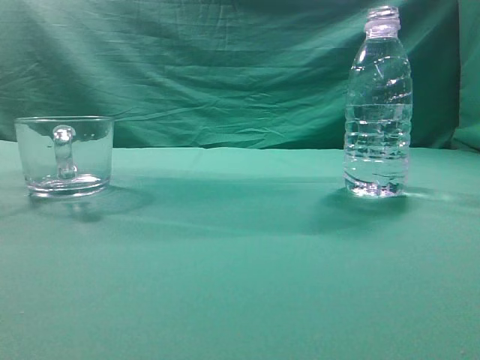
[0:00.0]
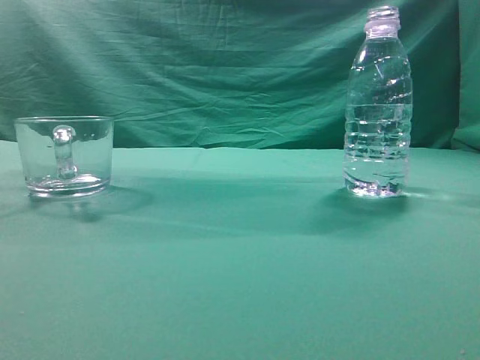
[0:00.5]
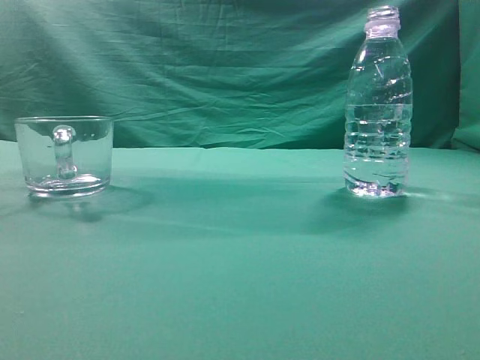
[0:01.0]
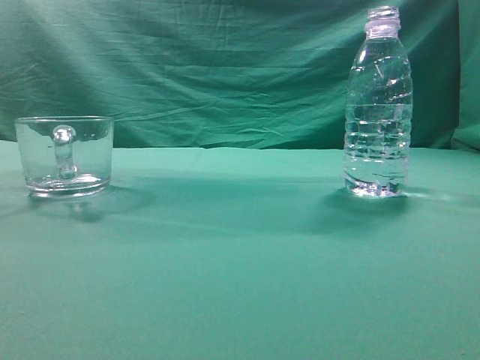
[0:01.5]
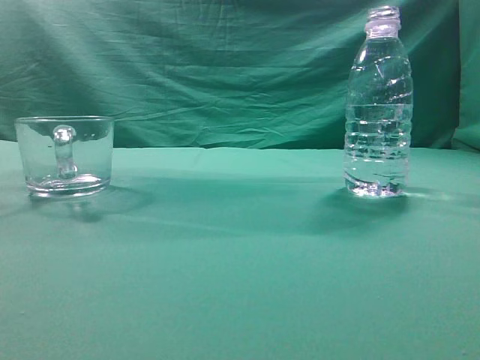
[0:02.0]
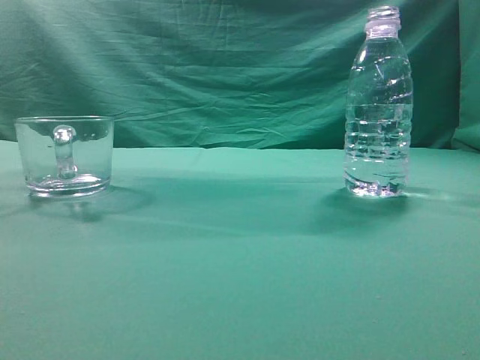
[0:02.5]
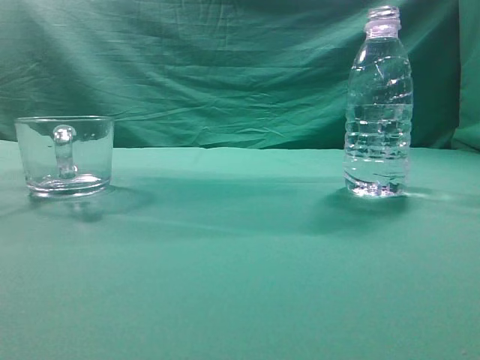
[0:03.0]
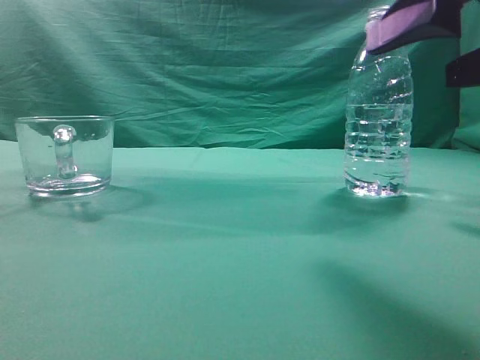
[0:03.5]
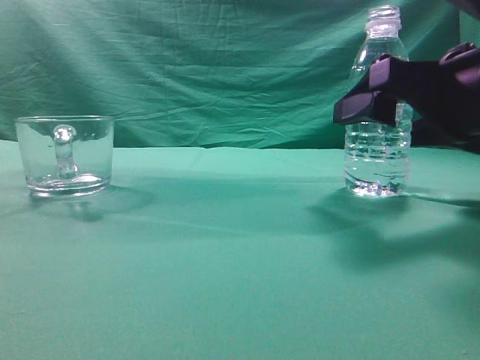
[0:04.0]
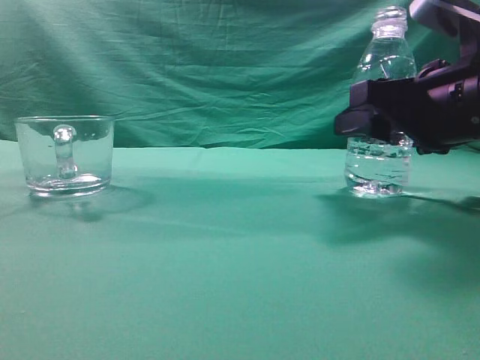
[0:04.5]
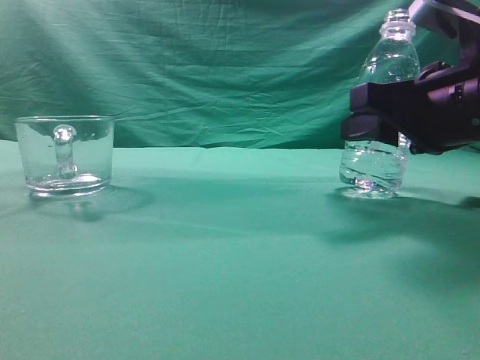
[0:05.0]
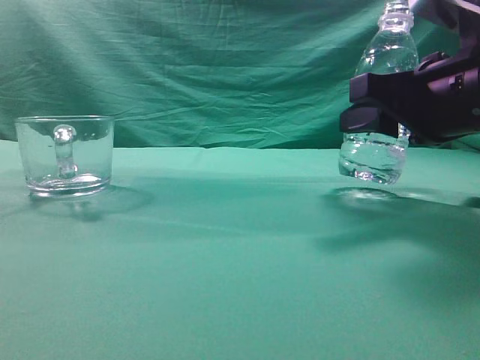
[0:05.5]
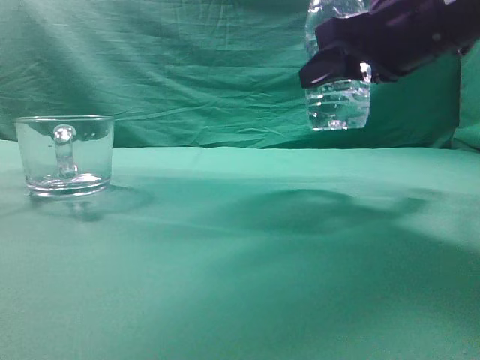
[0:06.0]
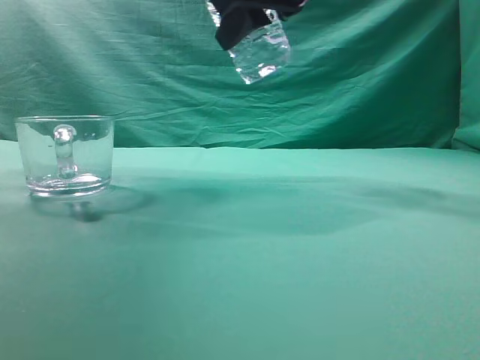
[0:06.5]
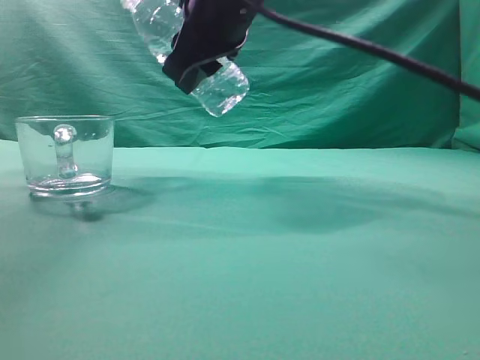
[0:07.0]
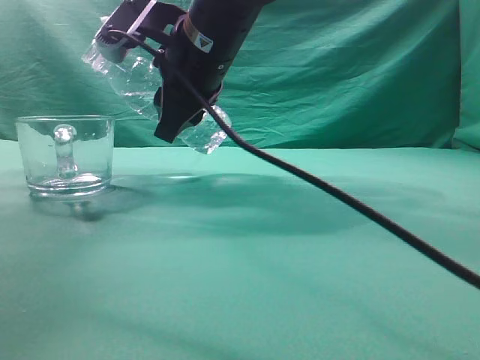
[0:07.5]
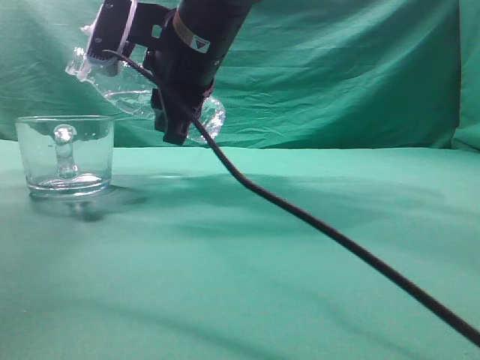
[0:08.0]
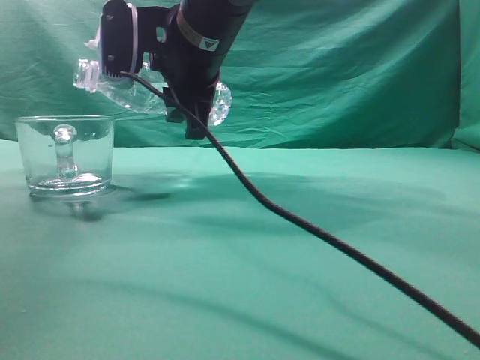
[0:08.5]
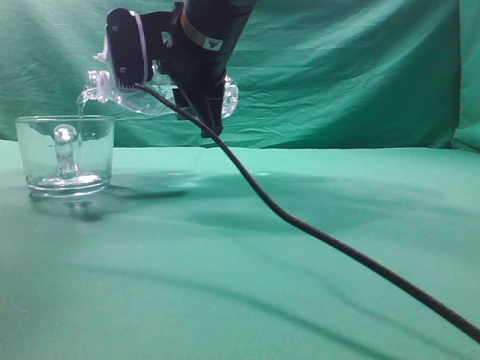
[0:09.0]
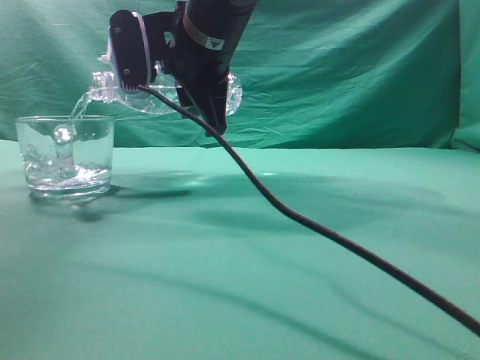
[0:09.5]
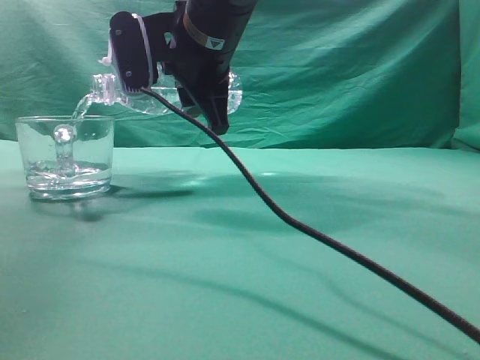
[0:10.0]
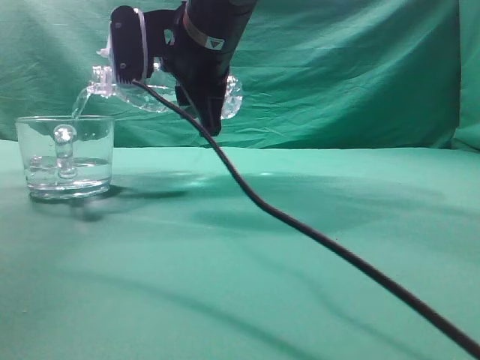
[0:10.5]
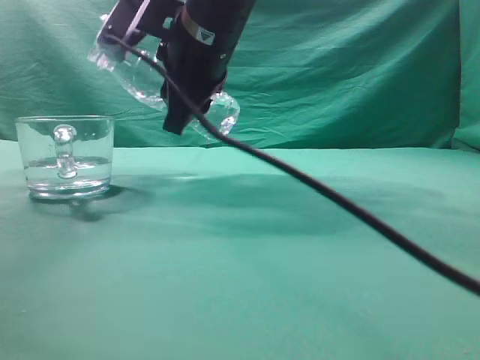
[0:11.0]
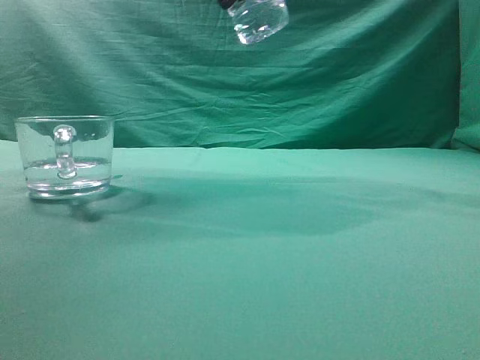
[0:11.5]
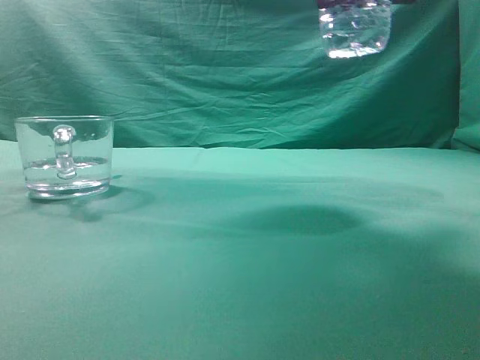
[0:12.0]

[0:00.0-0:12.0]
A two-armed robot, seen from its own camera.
Task of the whole recording: pick up the water bottle and pour the water in it into the glass.
Step, 0:00.0 to 0:05.5: Grasp the mineral water bottle.
Step, 0:06.0 to 0:11.0: Pour water into the teacup.
0:02.0 to 0:04.0: The right gripper is displaced forward and downward by approximately 25 cm, and opens.
0:04.0 to 0:06.0: The right gripper goes some 5 cm upward, and closes its fingers.
0:06.0 to 0:08.0: The right gripper moves to the left, roughly 20 cm.
0:10.0 to 0:12.0: The right gripper travels to the right by about 20 cm.

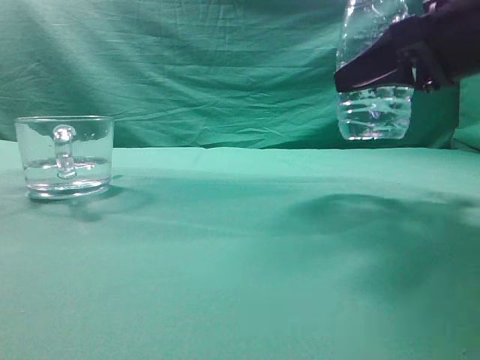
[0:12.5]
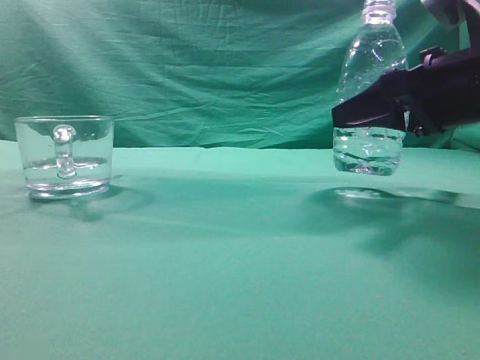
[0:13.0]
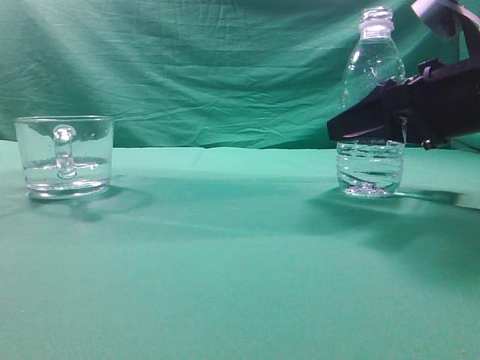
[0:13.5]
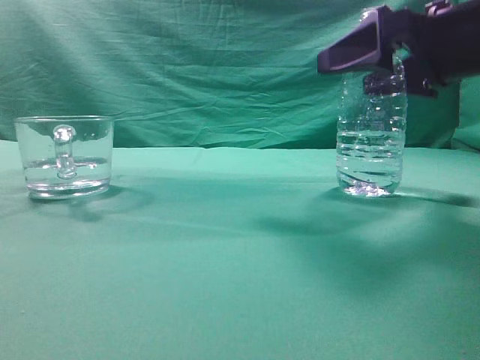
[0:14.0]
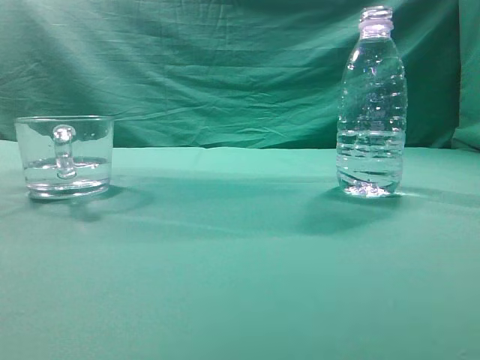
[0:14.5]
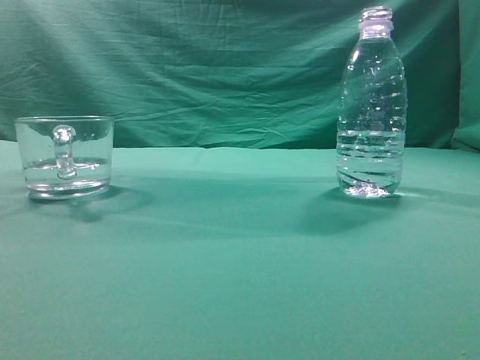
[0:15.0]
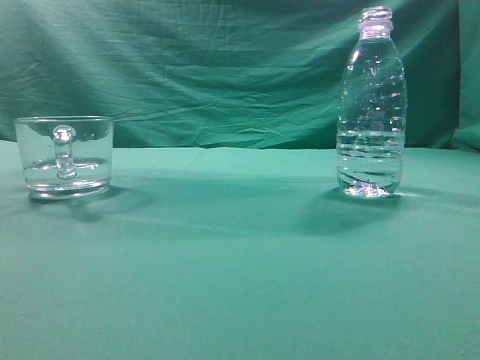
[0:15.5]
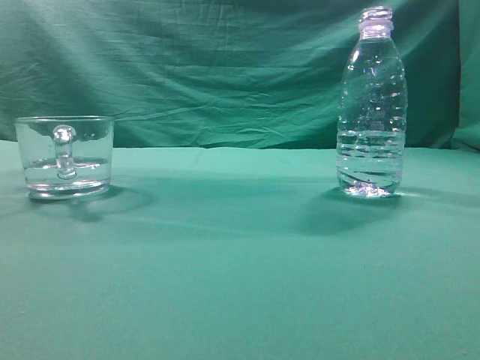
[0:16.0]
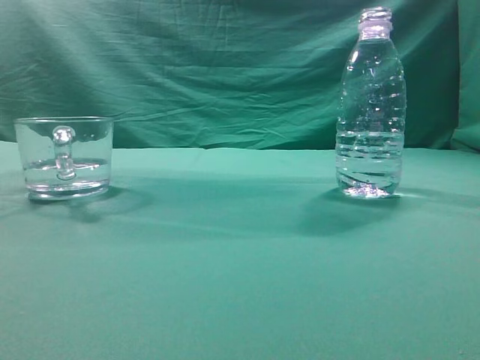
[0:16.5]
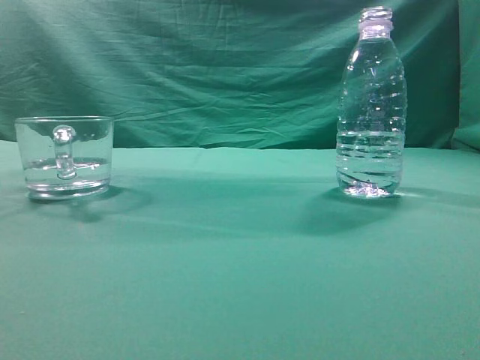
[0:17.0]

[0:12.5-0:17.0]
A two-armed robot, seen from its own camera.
Task of the whole recording: pick up the water bottle and pour the water in it into the glass.
0:12.5 to 0:14.5: The right gripper heads upward, covering roughly 15 cm, and opens, then closes again.
